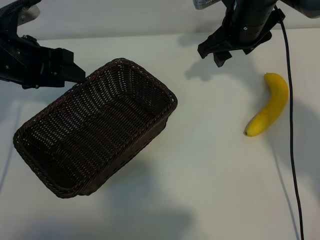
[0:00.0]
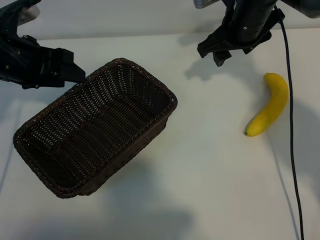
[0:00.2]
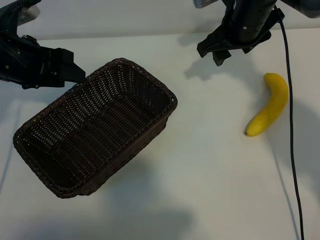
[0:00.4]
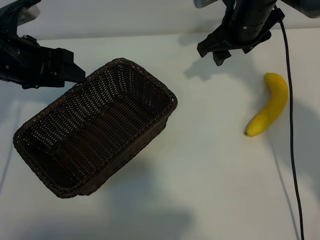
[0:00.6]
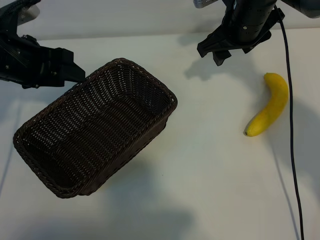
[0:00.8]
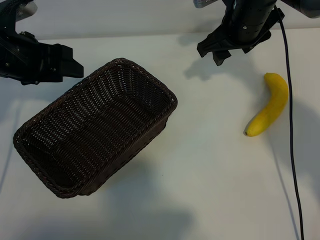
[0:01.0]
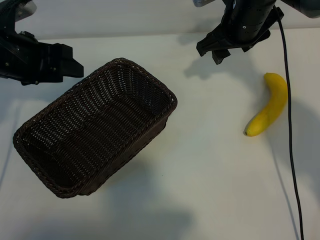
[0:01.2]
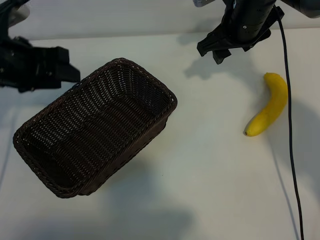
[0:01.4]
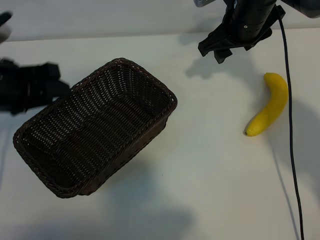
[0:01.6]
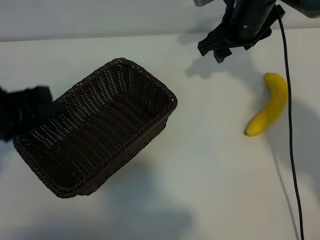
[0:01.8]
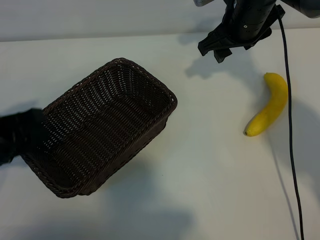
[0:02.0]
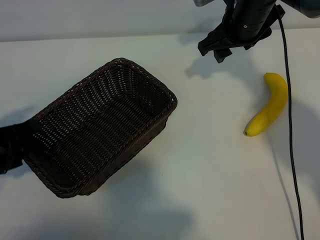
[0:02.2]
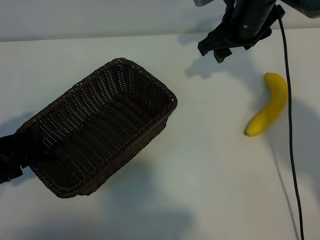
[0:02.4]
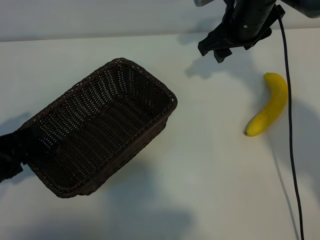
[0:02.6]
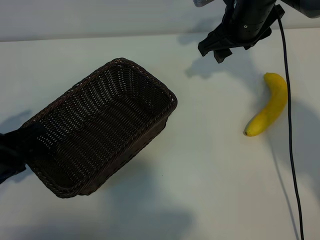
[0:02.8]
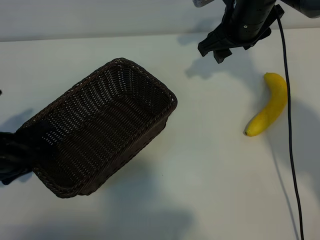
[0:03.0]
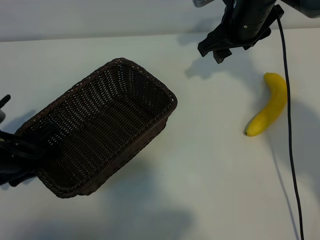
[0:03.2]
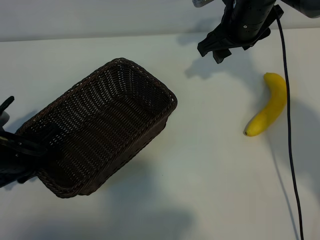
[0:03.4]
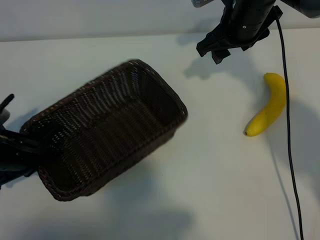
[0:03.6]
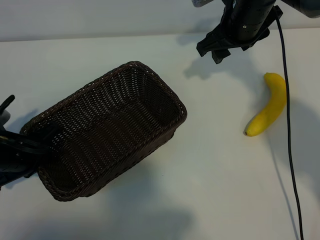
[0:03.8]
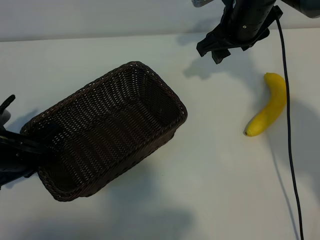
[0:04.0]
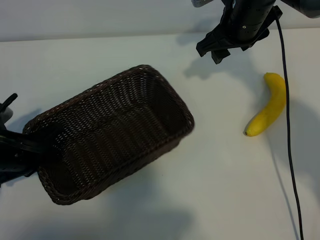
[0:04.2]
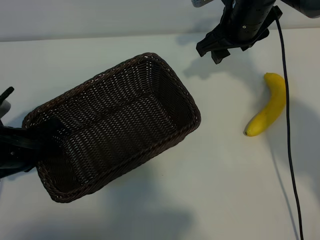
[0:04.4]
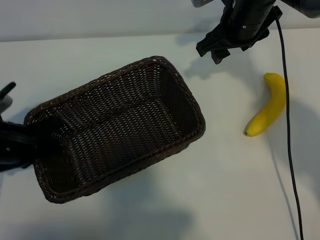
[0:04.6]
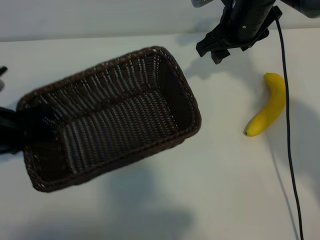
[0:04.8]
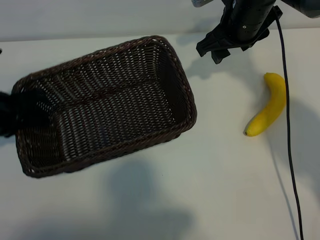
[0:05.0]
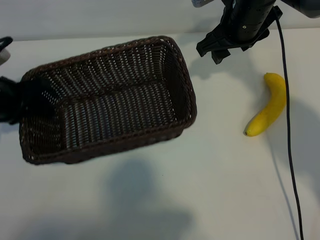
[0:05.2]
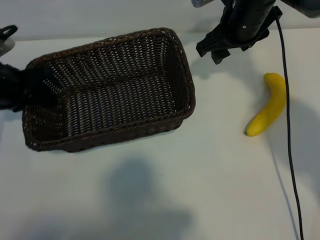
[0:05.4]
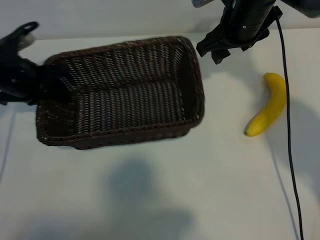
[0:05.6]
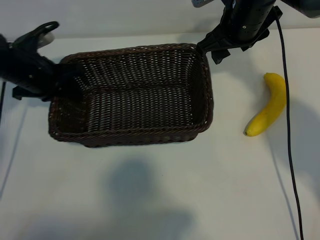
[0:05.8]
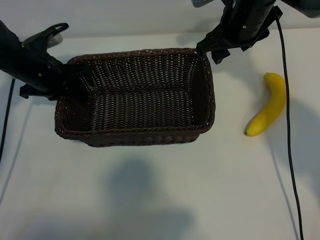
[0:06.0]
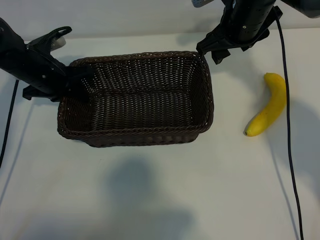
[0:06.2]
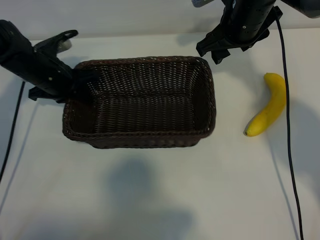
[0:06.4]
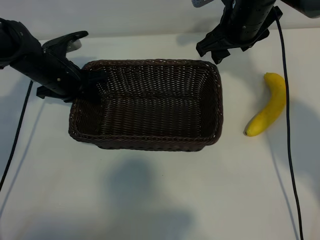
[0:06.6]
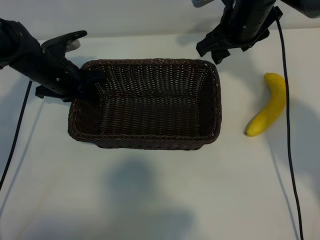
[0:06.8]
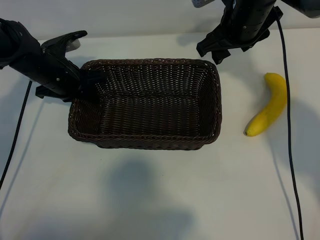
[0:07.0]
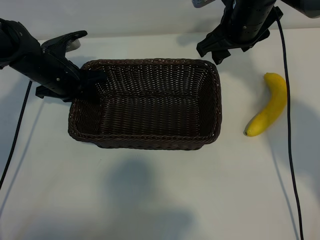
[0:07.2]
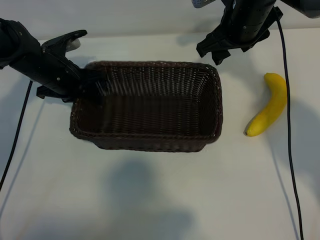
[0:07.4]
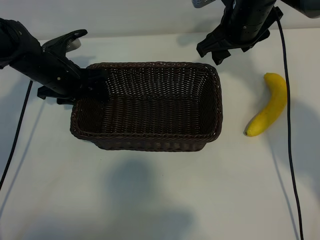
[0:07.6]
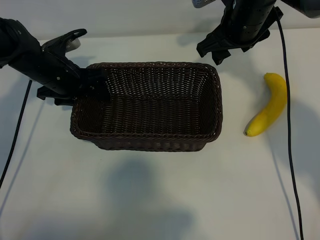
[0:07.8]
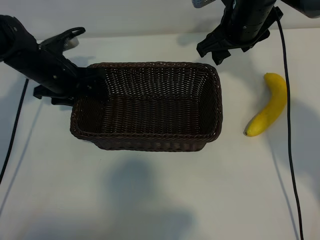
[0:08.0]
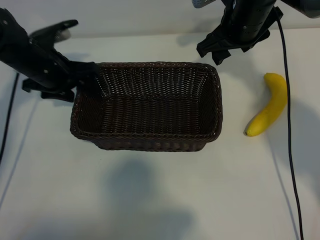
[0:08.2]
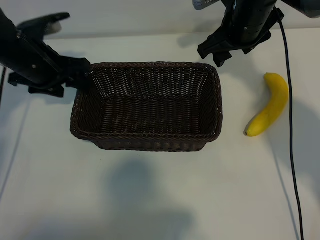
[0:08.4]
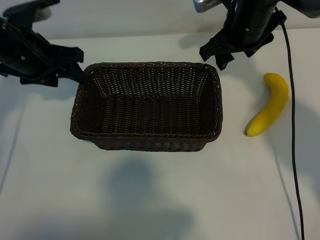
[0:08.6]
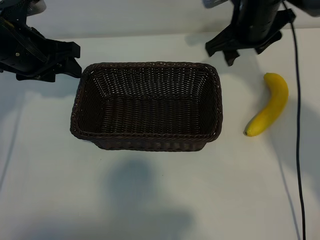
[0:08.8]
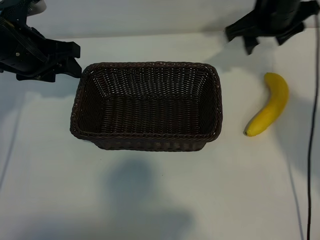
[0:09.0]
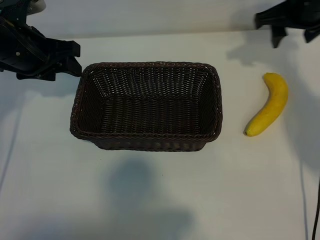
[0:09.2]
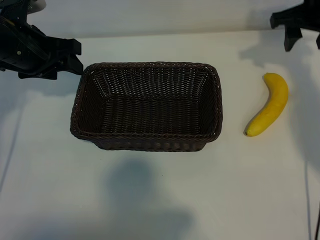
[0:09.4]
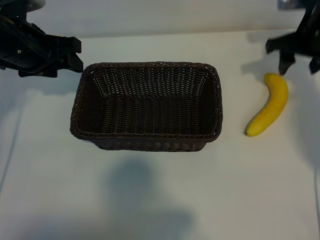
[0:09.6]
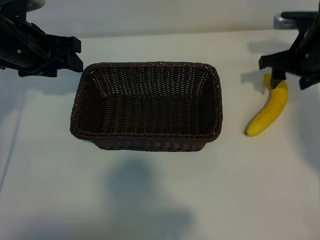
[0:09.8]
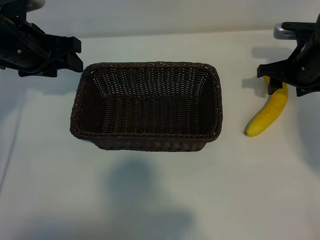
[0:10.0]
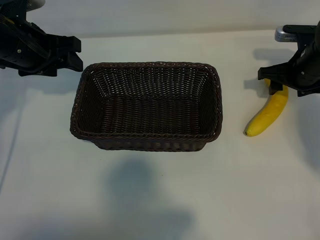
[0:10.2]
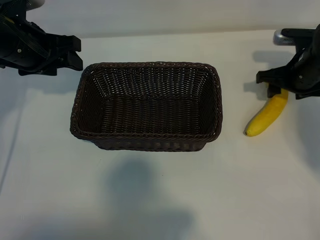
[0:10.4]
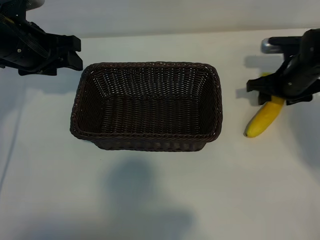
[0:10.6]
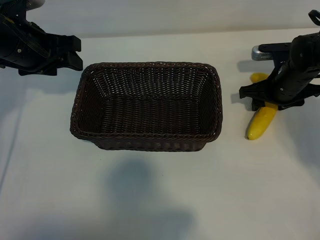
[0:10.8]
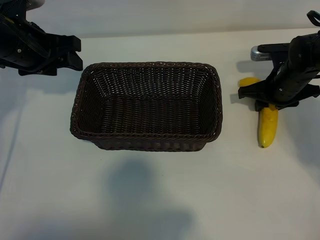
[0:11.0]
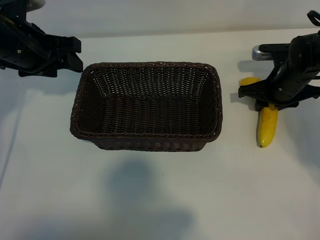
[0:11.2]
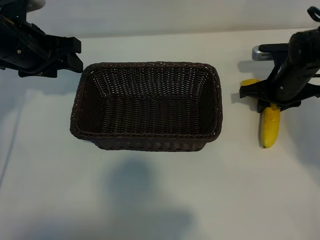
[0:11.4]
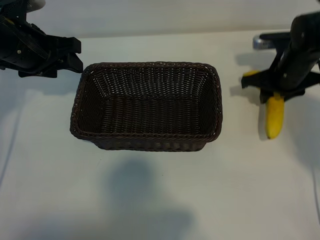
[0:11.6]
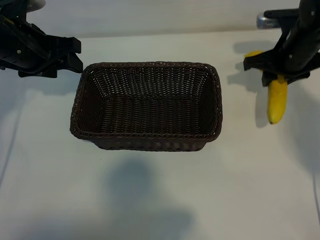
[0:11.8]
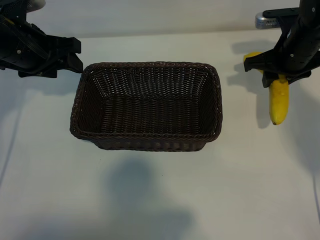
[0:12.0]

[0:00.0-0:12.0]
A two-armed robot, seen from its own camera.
Task of the whole recording: pick up the banana and put it into the basket.
Step, 0:00.8 to 0:03.6: Grasp the basket with the left gripper.
Step, 0:03.8 to 0:08.0: Place the basket in the center of the table with the left gripper.
Step, 0:08.4 to 0:11.0: Grasp the banana with right gripper.

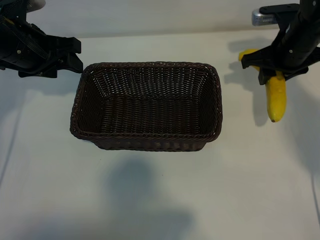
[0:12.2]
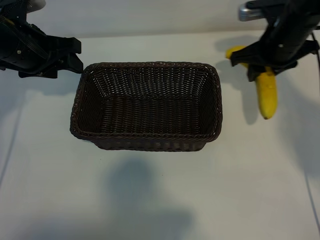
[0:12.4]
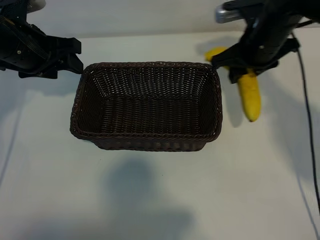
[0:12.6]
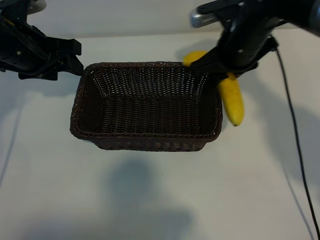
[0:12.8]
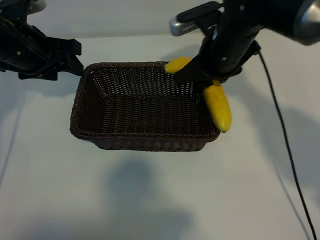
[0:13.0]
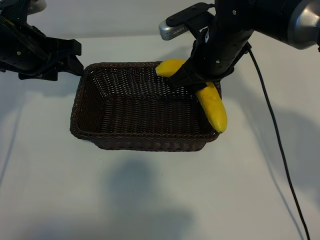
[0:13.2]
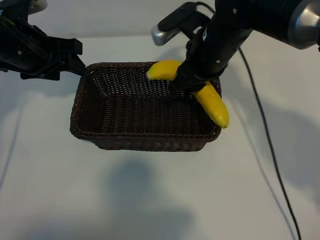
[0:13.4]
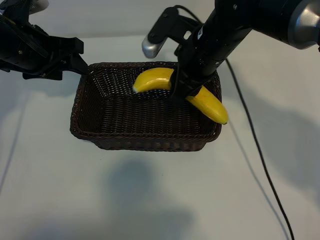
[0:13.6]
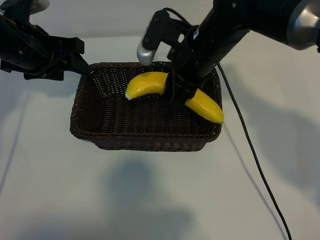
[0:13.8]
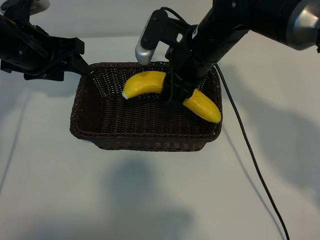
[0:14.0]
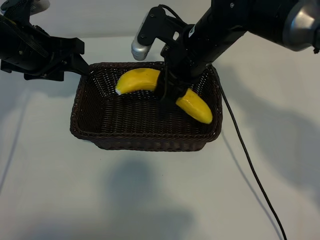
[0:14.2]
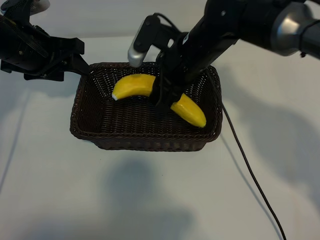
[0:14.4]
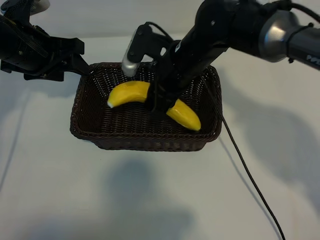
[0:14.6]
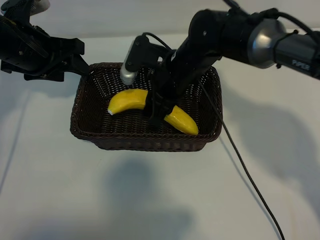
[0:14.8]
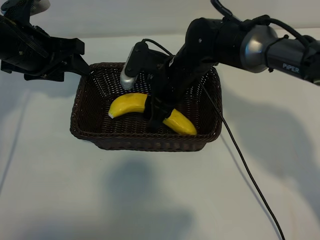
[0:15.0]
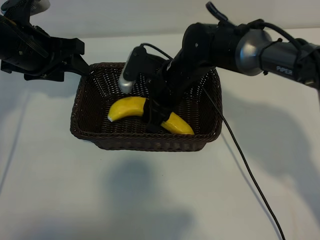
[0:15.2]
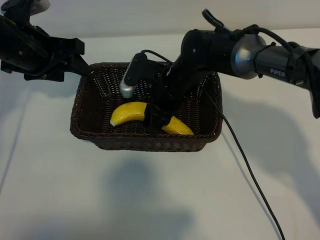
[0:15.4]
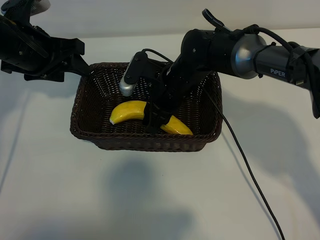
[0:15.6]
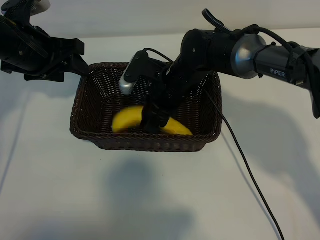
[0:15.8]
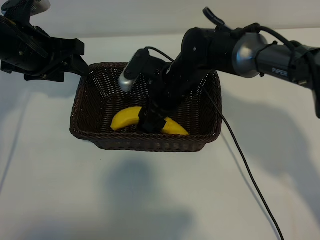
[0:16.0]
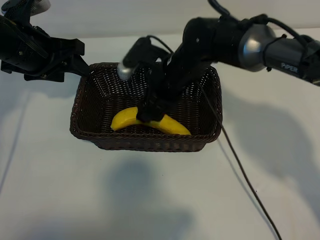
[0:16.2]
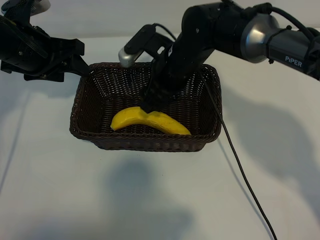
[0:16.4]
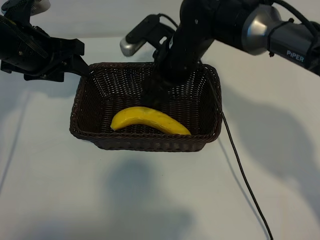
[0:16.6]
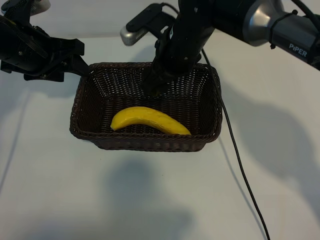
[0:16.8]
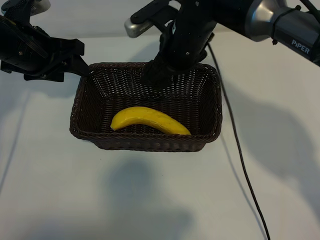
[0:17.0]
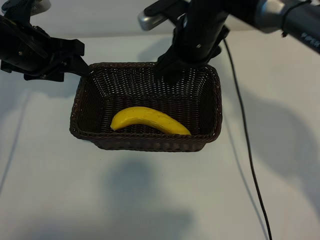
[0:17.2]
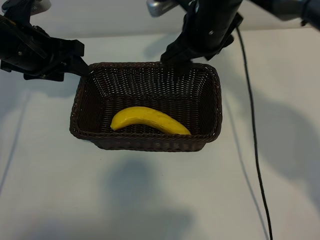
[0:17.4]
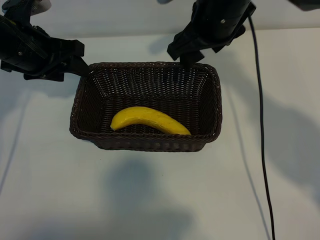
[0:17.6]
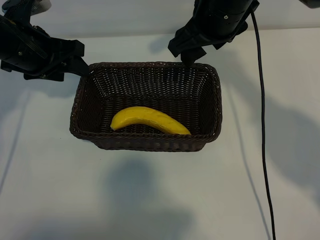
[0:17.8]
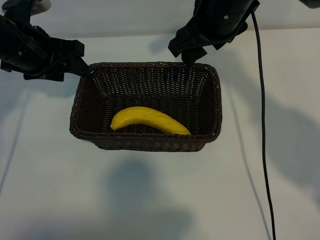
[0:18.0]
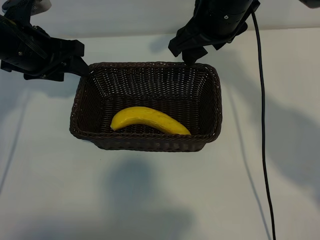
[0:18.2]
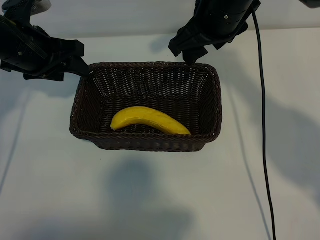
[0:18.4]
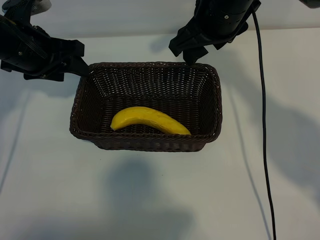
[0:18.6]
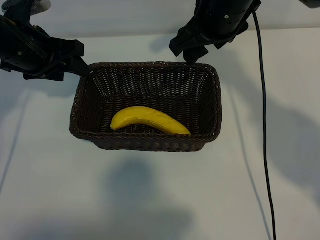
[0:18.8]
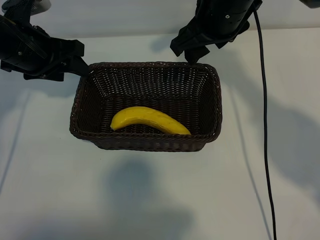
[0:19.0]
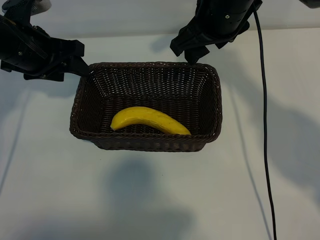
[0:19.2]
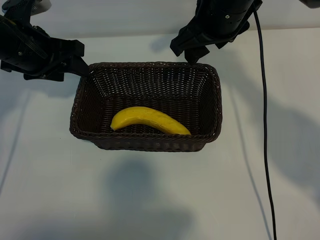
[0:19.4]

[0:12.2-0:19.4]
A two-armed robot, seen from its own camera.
Task of the whole recording: pick up the banana and put it into the basket.
Step, 0:12.2 to 0:16.2: Place the banana in the basket with right gripper.
